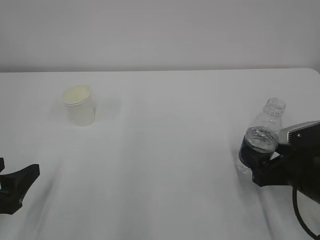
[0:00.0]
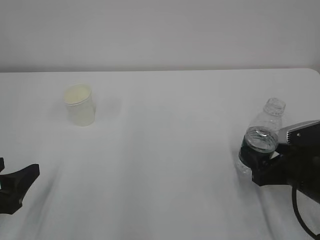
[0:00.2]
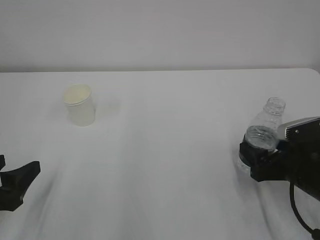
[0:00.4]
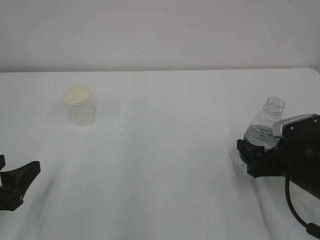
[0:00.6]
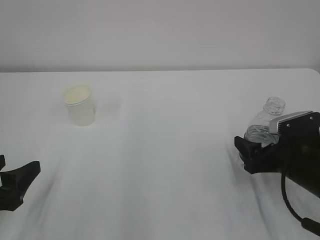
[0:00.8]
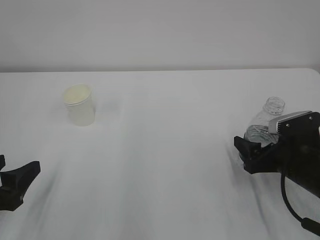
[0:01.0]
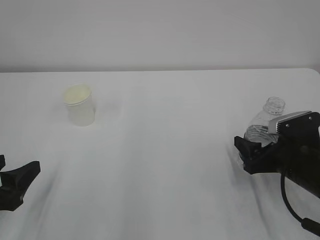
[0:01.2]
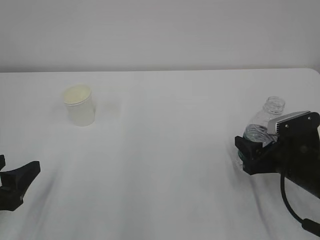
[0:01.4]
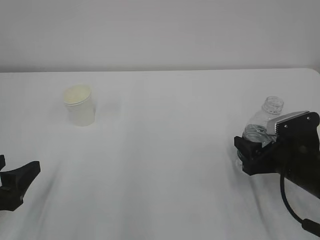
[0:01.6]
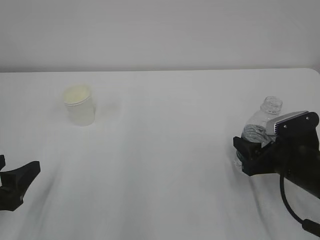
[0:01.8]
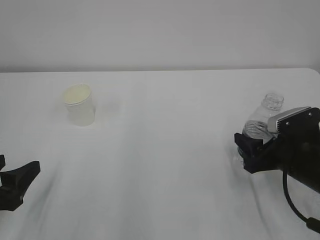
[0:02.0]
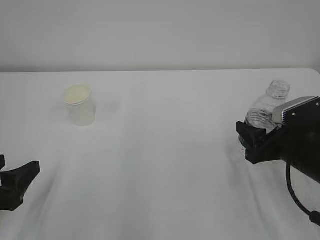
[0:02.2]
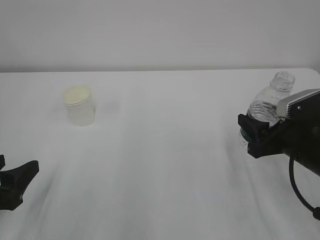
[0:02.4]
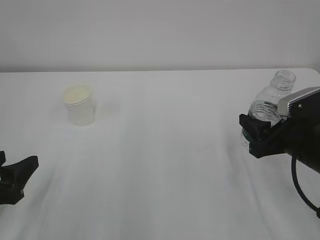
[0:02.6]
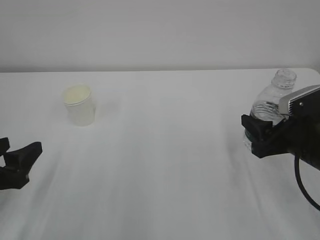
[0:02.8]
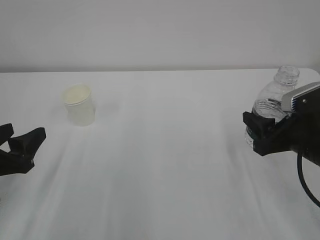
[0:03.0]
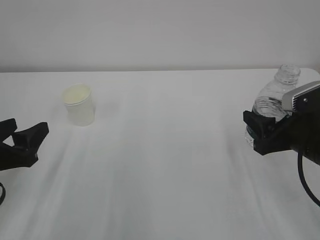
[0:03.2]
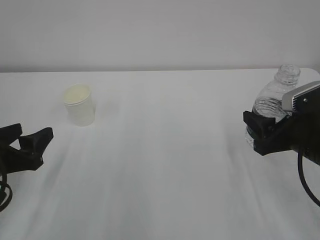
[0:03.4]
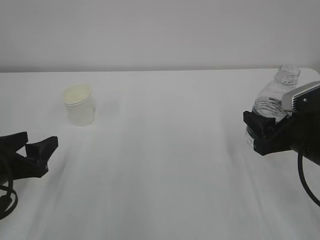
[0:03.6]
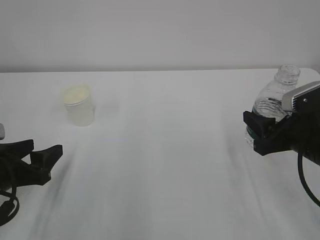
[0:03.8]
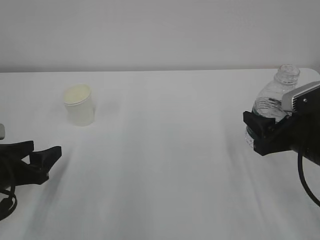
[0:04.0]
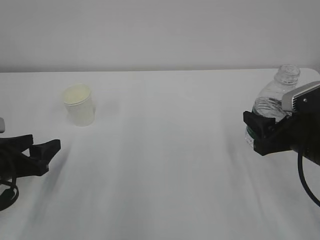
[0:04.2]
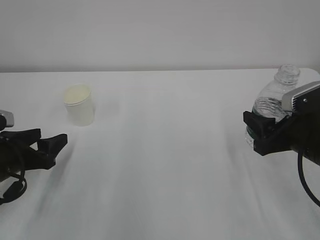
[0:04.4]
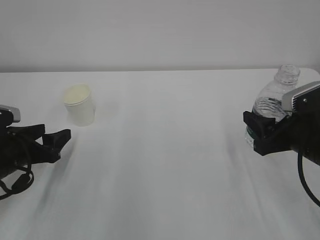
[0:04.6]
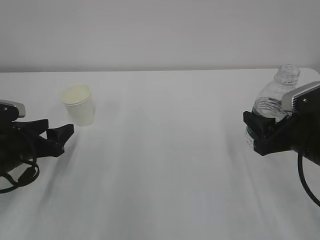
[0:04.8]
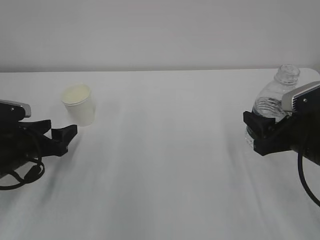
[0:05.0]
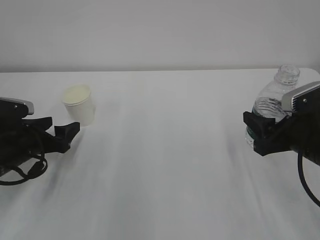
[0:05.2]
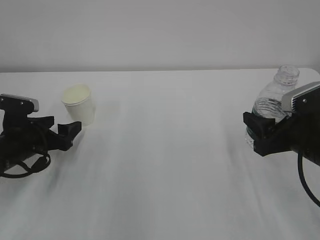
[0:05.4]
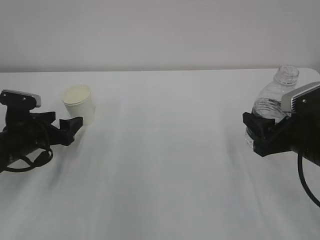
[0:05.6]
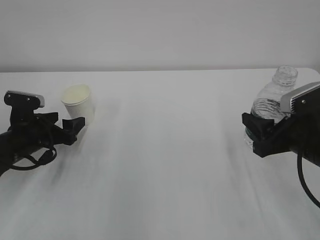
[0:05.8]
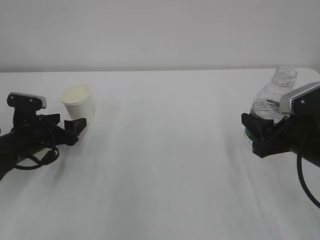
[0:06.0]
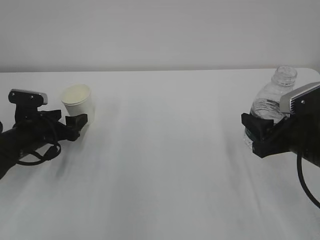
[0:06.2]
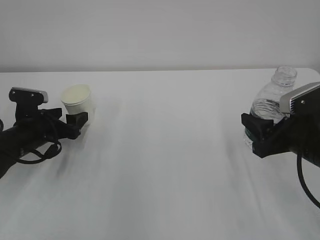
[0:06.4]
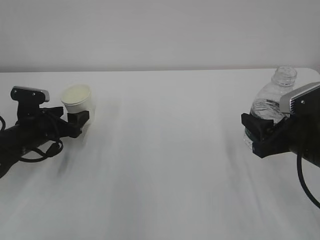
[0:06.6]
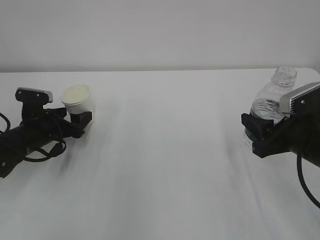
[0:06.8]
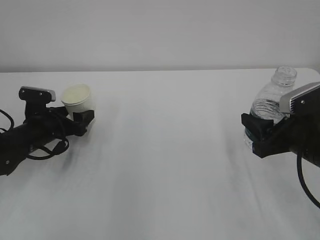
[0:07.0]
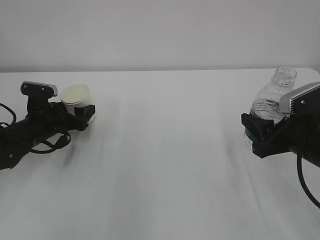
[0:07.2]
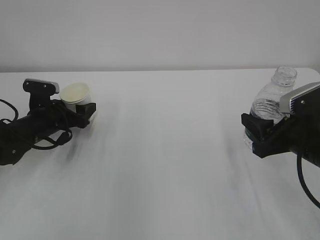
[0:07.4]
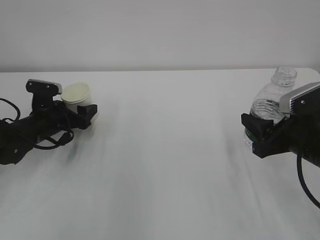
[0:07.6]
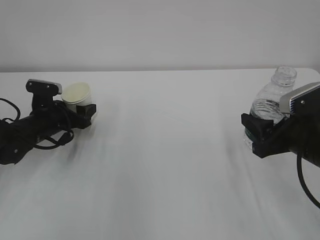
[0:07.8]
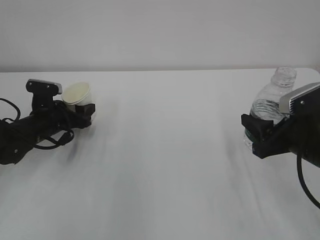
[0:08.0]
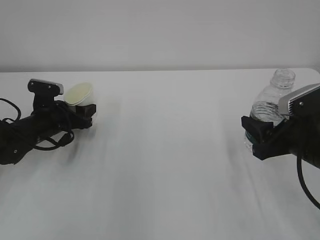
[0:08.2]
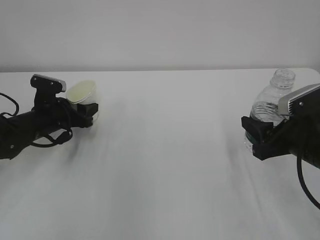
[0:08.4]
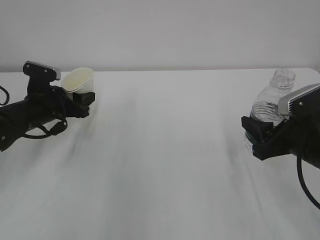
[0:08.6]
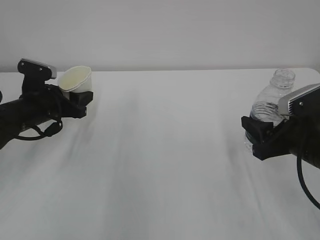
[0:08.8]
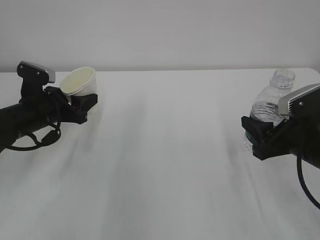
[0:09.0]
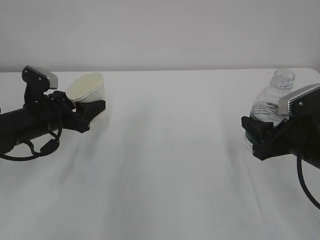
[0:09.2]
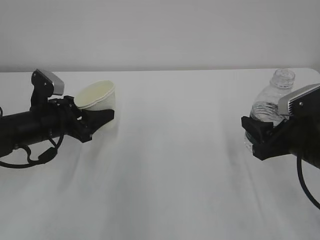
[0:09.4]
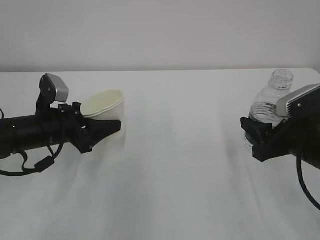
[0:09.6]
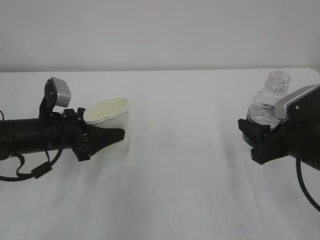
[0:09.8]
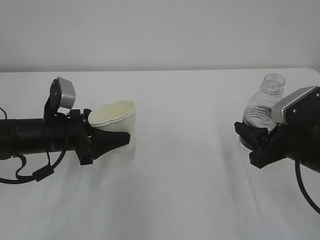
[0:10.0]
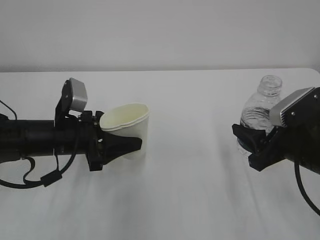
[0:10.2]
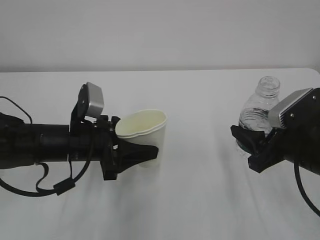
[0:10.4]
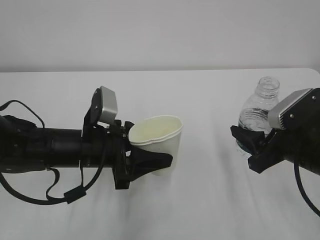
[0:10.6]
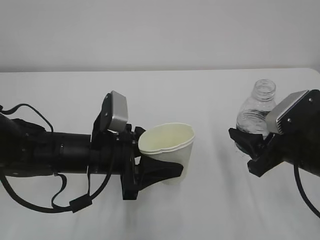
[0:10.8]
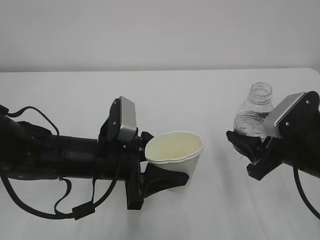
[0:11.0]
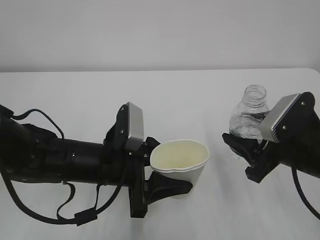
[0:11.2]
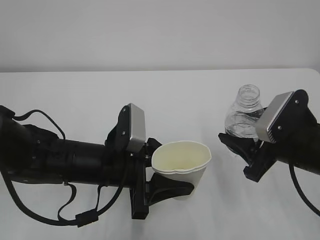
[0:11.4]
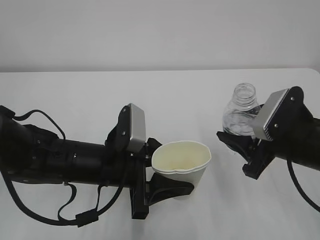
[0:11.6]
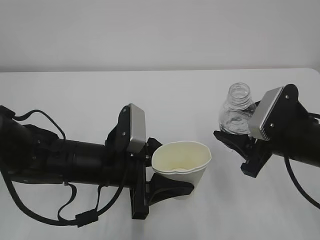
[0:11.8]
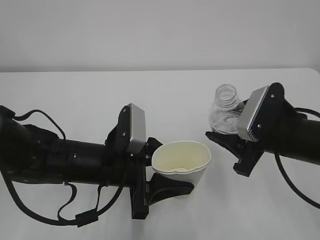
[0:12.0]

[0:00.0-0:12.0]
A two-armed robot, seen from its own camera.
0:00.0 to 0:01.6: The right gripper closes up.
0:01.6 to 0:03.0: The right gripper goes about 5 cm upward.
0:03.0 to 0:04.4: The left gripper is displaced forward by about 5 cm.
0:04.4 to 0:06.0: The left gripper goes roughly 10 cm forward, and opens.
0:06.0 to 0:07.6: The left gripper heads forward, covering roughly 5 cm.
0:07.6 to 0:09.0: The left gripper is displaced upward by some 5 cm, and closes.
0:09.0 to 0:10.4: The left gripper moves to the right and backward, approximately 10 cm.
0:10.4 to 0:12.0: The left gripper shifts approximately 5 cm to the right.

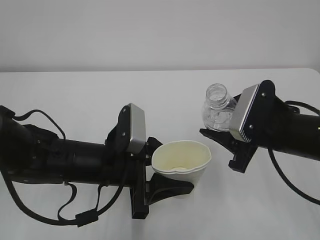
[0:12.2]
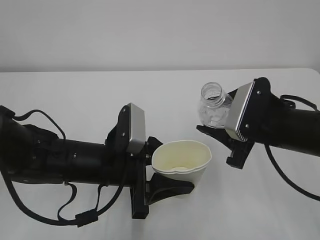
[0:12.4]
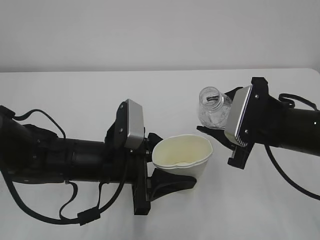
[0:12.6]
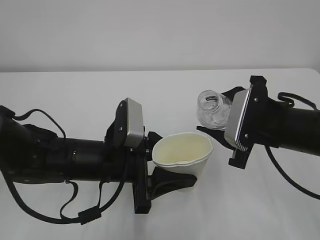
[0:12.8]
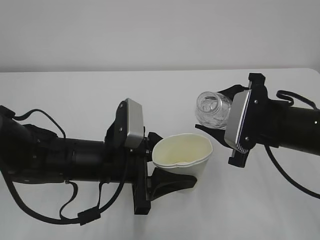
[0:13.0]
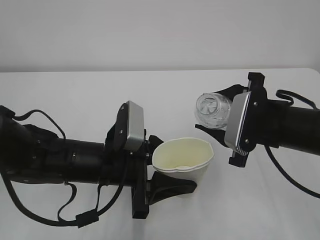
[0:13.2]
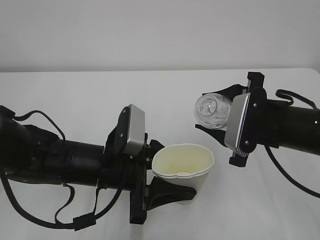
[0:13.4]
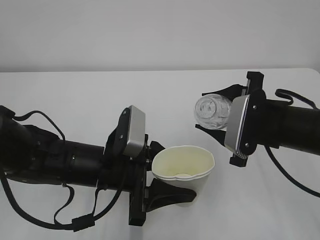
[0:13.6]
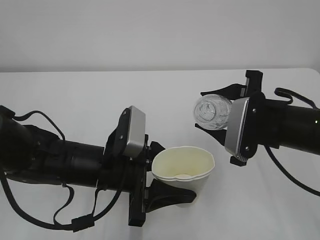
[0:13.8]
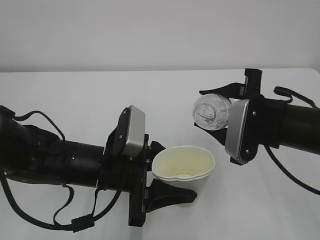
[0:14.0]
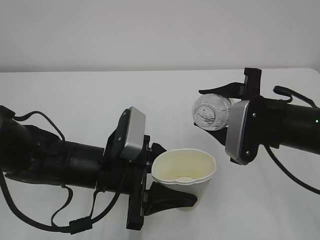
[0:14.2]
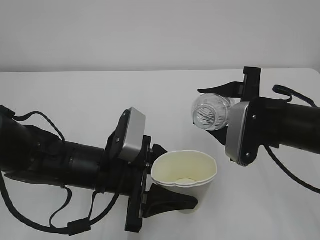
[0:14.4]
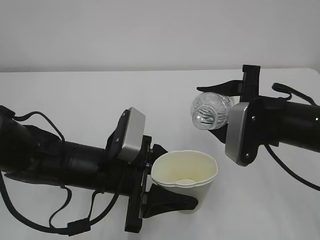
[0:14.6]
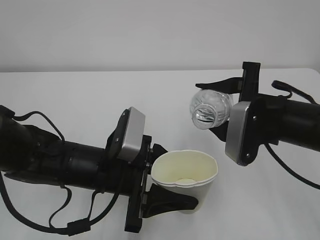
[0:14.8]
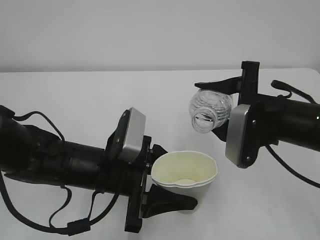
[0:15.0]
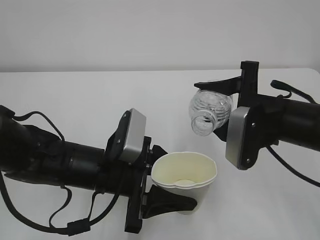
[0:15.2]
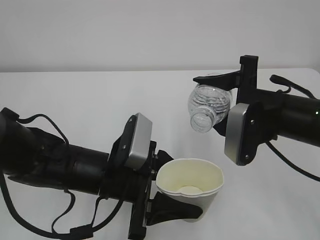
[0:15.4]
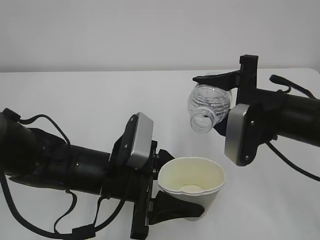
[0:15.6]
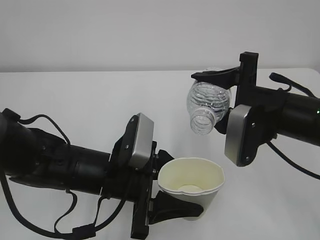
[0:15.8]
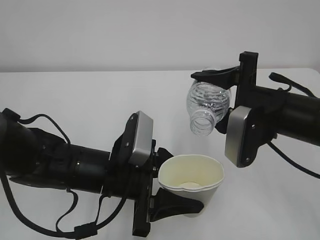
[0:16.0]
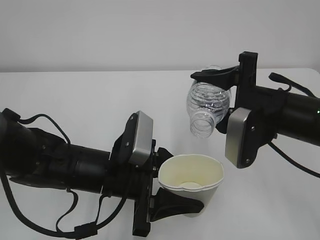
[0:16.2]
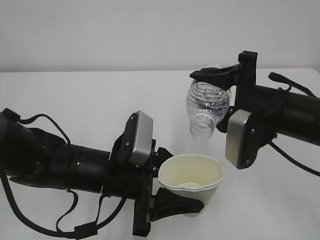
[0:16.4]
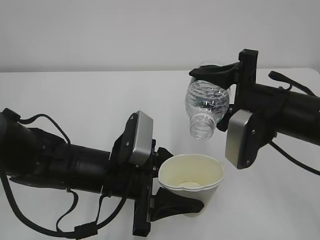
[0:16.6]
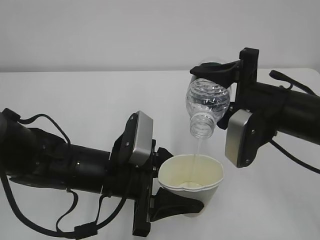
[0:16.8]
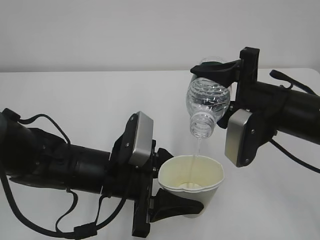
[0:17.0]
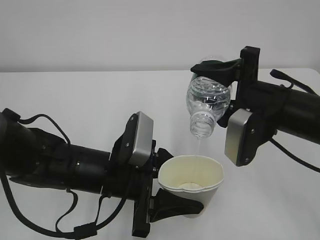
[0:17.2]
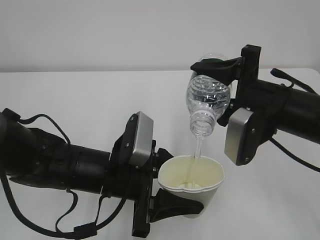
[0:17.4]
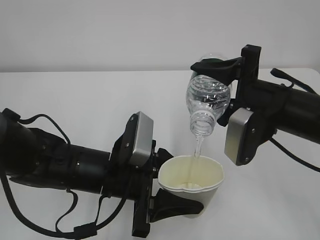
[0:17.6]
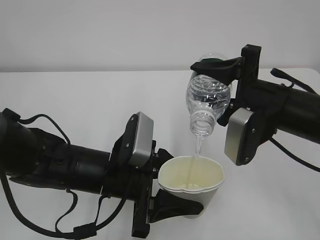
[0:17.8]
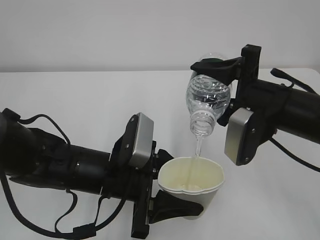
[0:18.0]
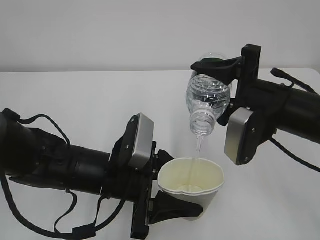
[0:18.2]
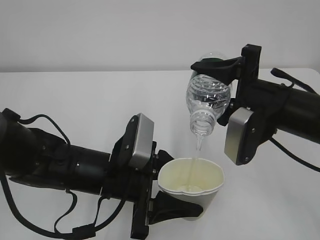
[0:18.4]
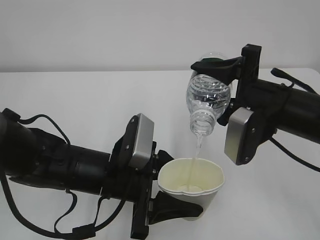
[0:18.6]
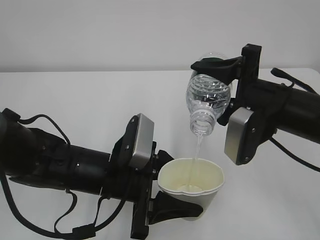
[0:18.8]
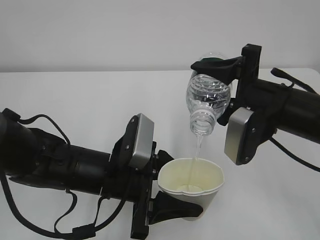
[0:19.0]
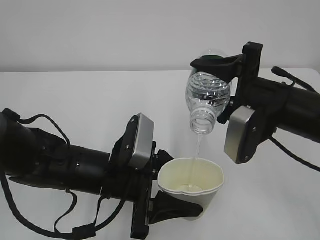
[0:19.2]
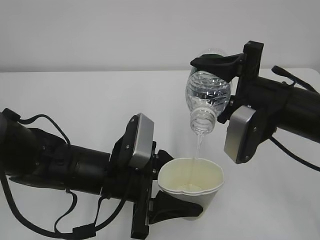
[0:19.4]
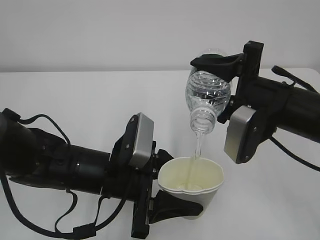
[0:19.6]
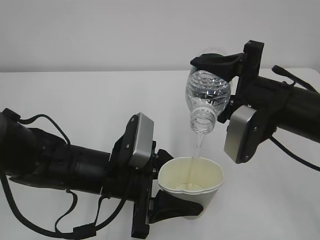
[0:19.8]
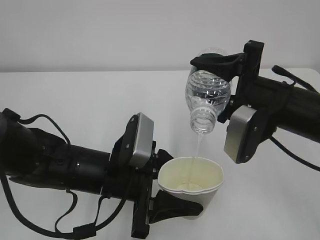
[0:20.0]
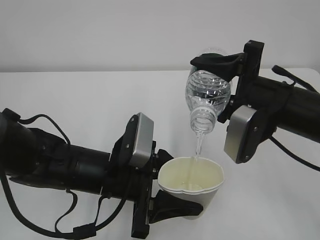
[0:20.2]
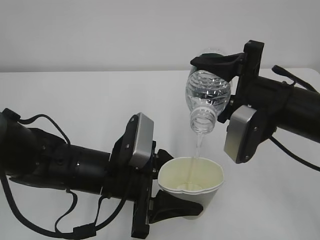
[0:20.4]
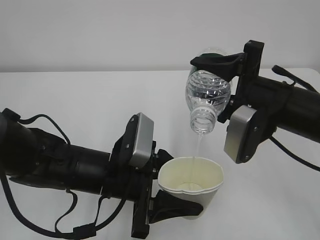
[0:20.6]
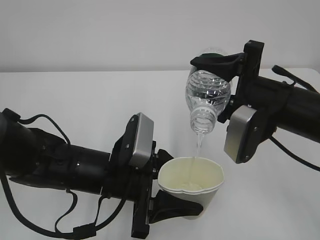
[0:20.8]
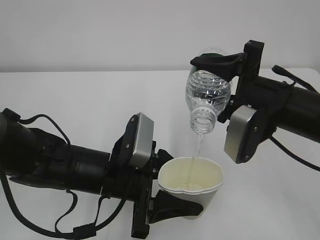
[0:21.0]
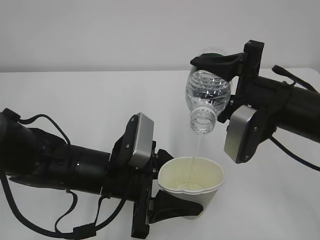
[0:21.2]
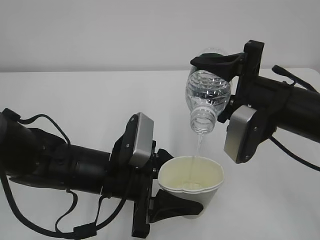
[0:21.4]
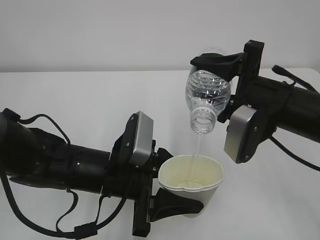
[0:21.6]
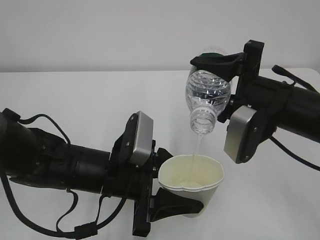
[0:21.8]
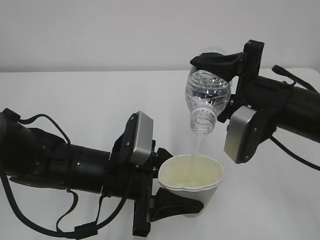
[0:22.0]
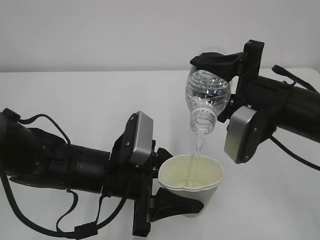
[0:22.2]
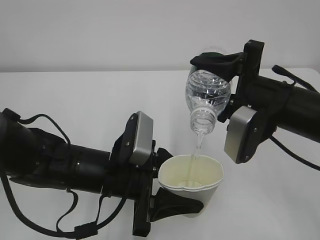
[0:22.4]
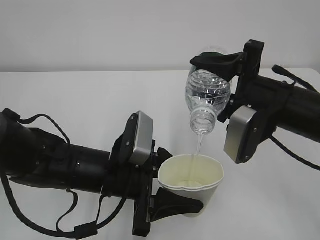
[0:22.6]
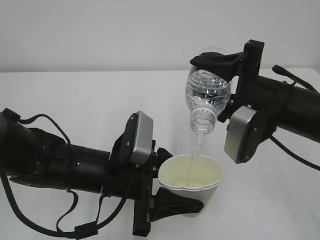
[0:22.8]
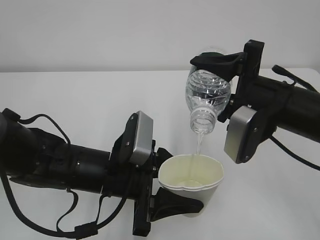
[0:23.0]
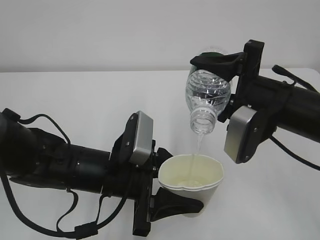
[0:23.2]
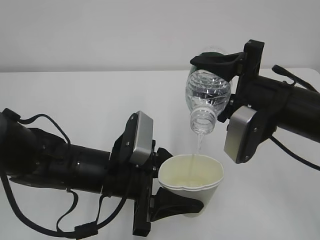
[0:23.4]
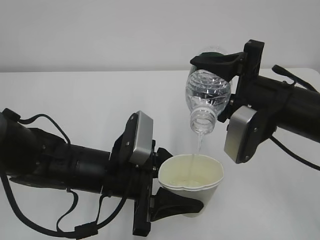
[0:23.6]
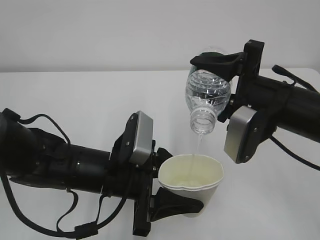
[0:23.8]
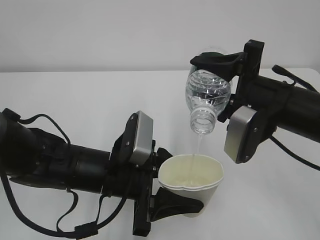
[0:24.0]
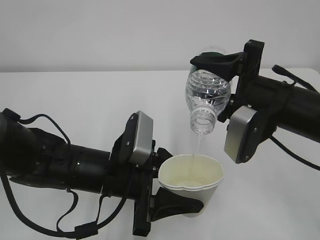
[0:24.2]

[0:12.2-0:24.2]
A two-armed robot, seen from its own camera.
0:13.8 to 0:15.2: There are only small adjustments of the grippers.
0:15.2 to 0:16.6: There are only small adjustments of the grippers.
0:16.6 to 0:18.2: Both grippers stay about where they are.
0:18.2 to 0:24.2: Both grippers stay about where they are.
